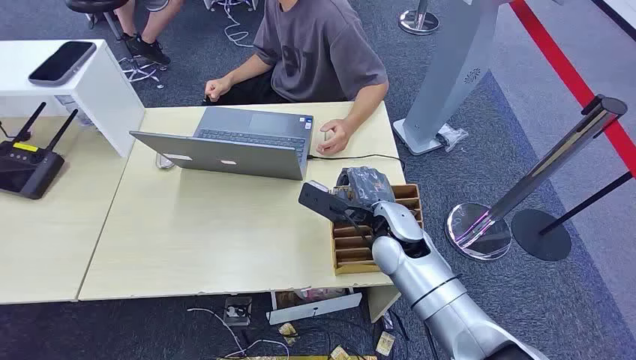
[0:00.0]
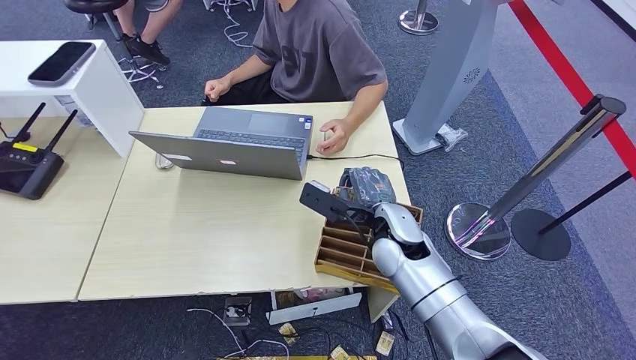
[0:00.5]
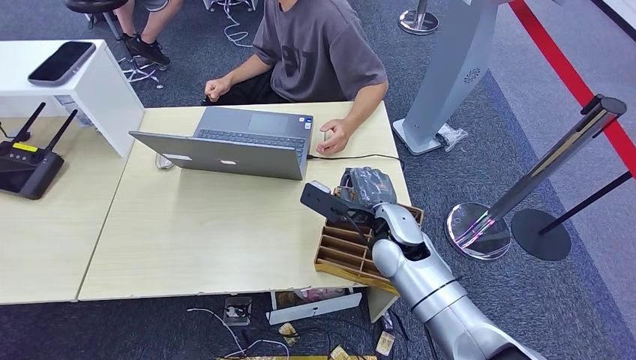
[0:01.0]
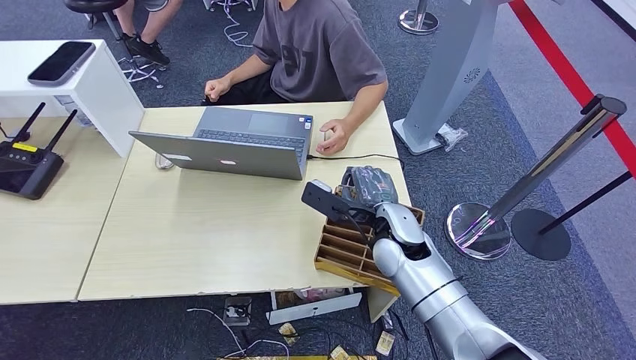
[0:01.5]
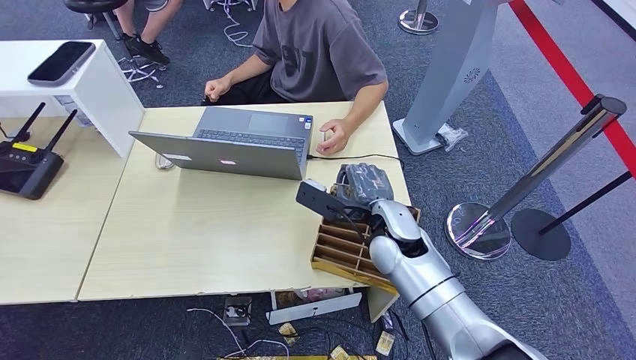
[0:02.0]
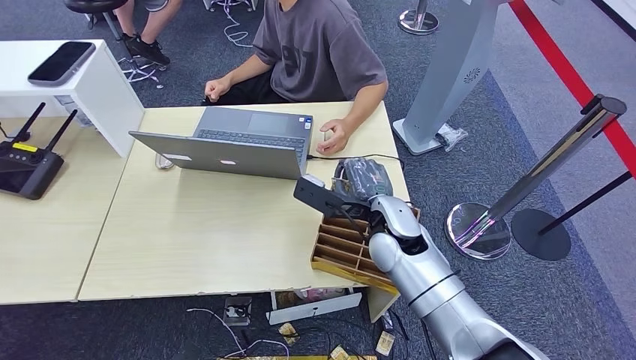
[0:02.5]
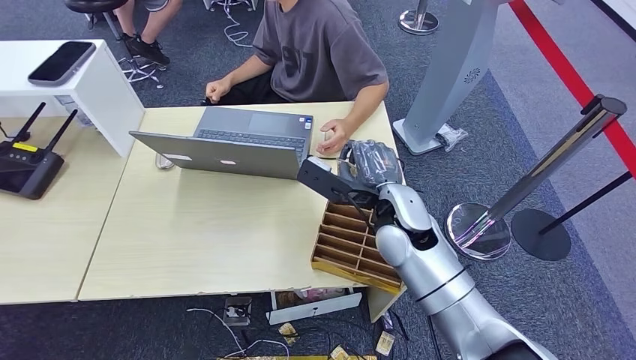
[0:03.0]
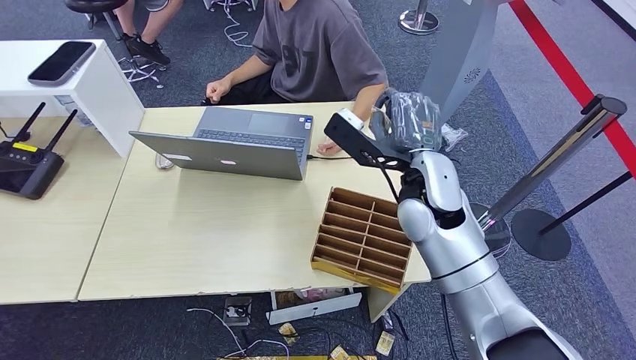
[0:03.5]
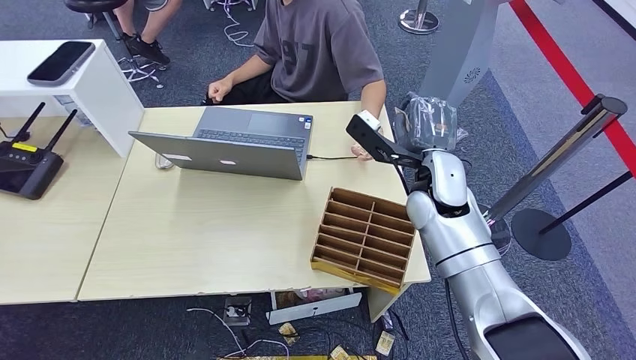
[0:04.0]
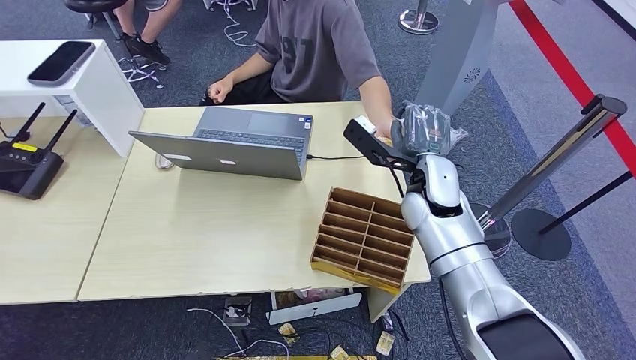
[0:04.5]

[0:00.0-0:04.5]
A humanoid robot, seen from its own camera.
Step, 0:00.0 to 0:02.5: Pick up the key card from the card box.
Step, 0:03.5 to 0:04.5: Hand the key card to the target.
0:02.0 to 0:04.5: The right hand heads to the right, upward and forward, covering about 10 cm.
